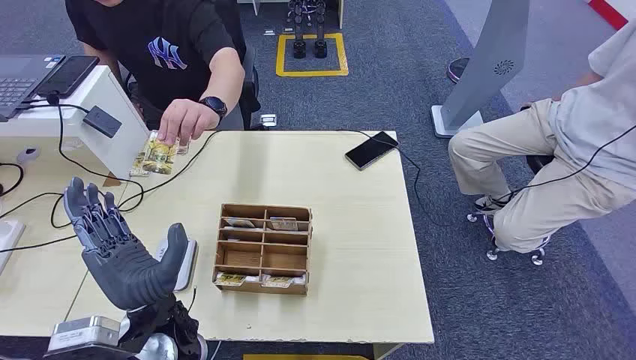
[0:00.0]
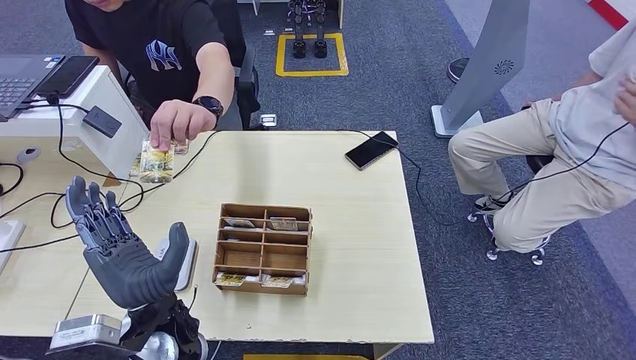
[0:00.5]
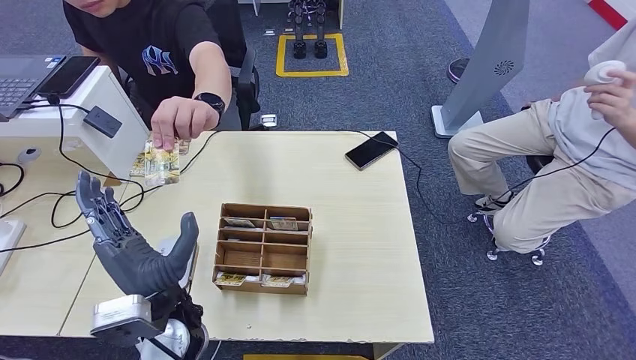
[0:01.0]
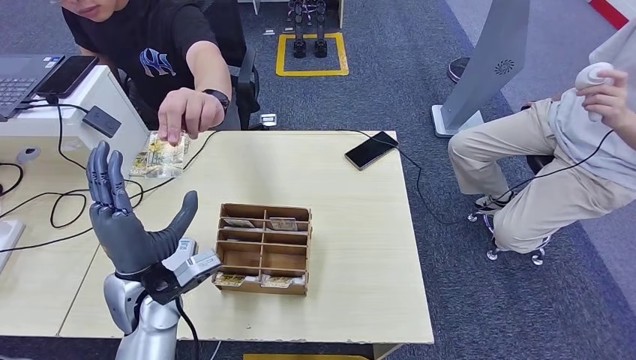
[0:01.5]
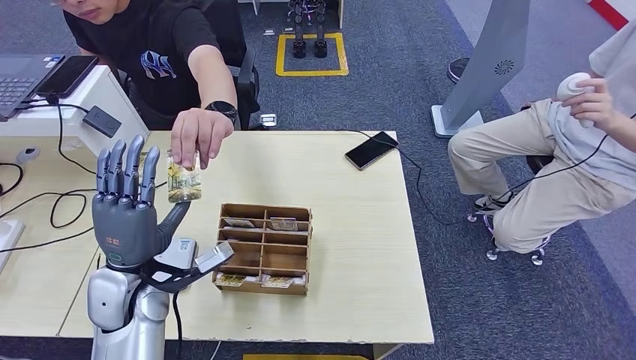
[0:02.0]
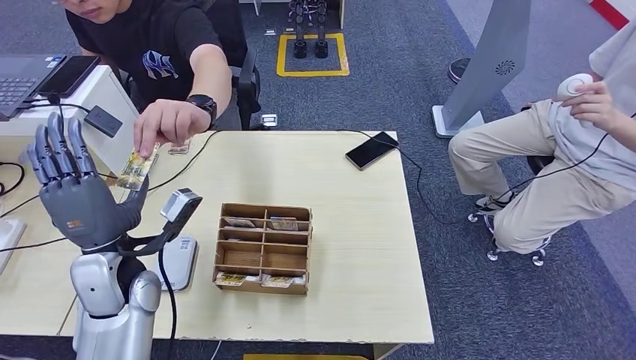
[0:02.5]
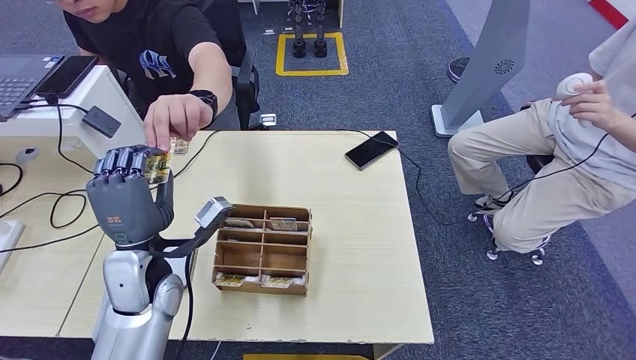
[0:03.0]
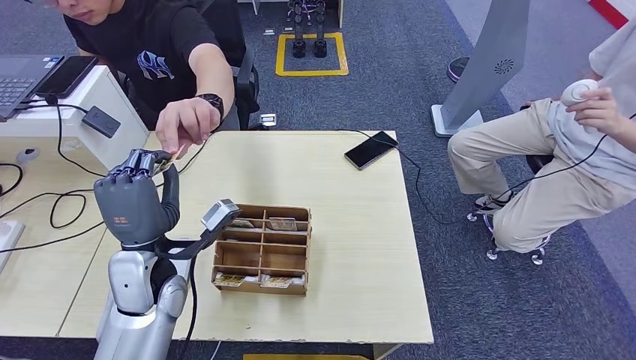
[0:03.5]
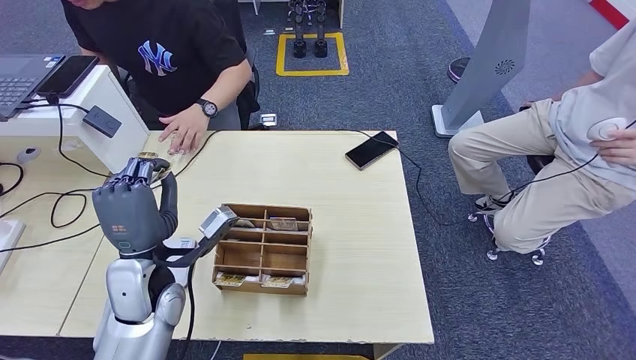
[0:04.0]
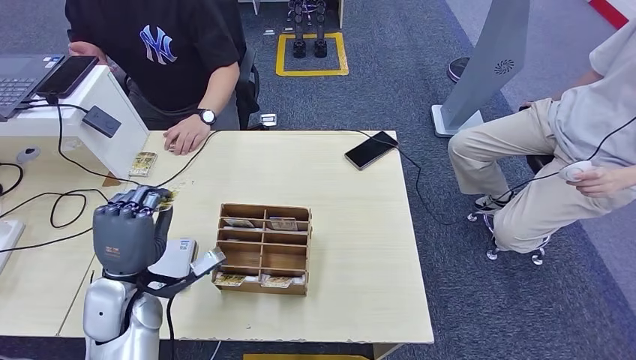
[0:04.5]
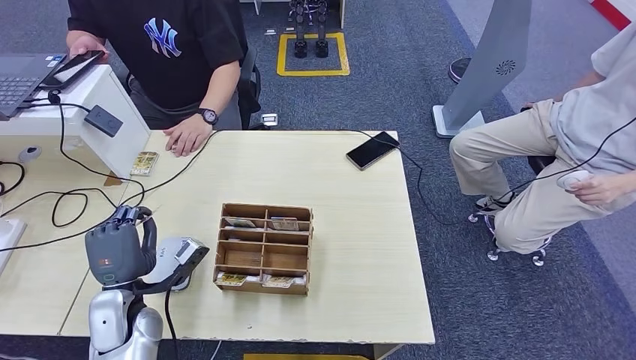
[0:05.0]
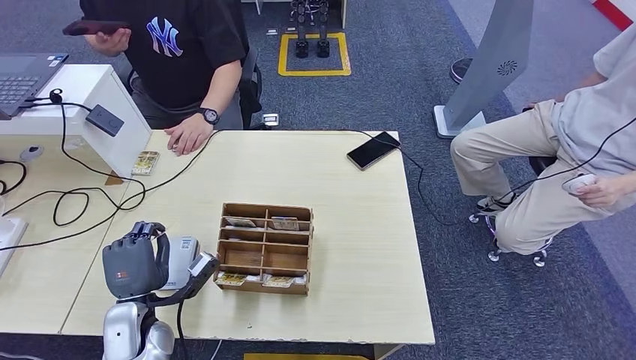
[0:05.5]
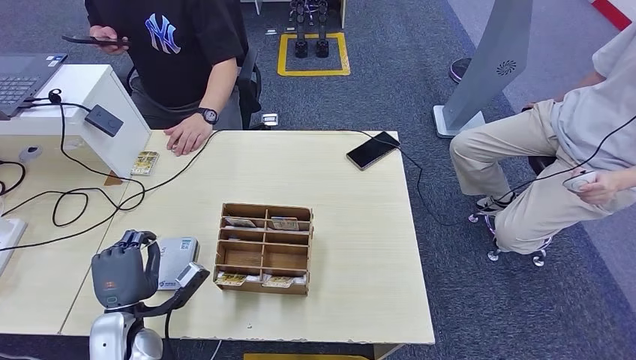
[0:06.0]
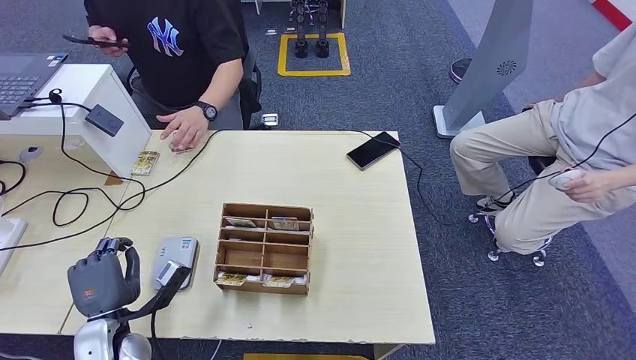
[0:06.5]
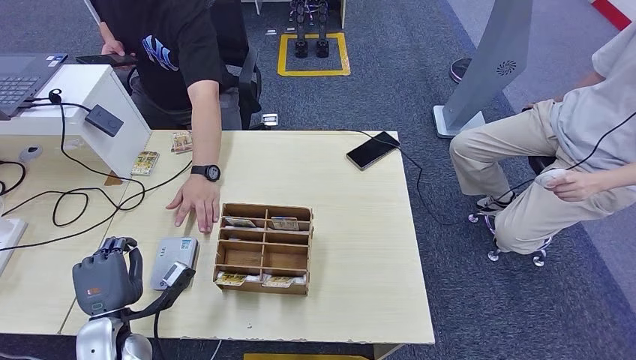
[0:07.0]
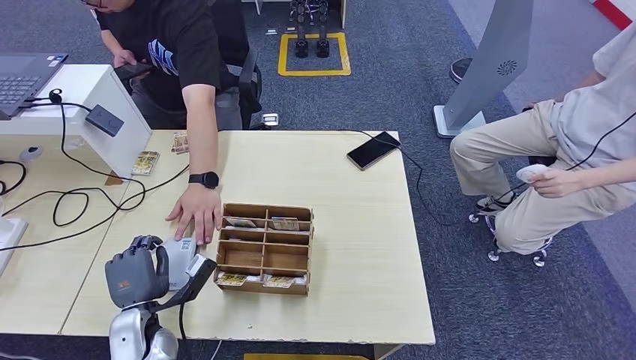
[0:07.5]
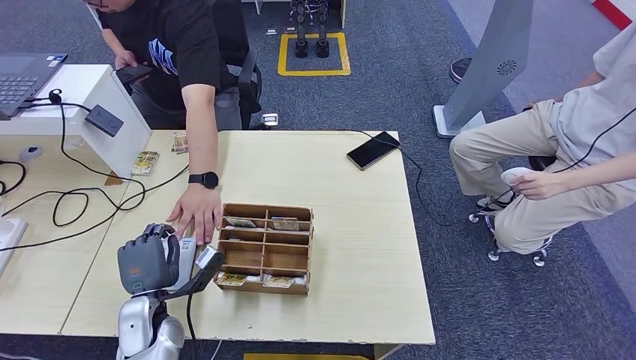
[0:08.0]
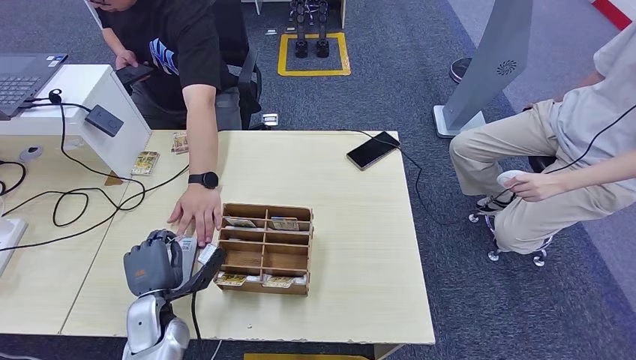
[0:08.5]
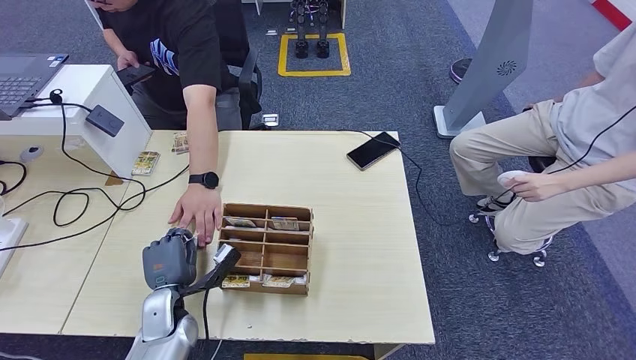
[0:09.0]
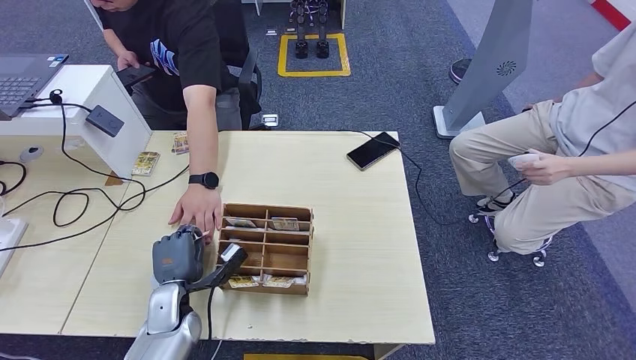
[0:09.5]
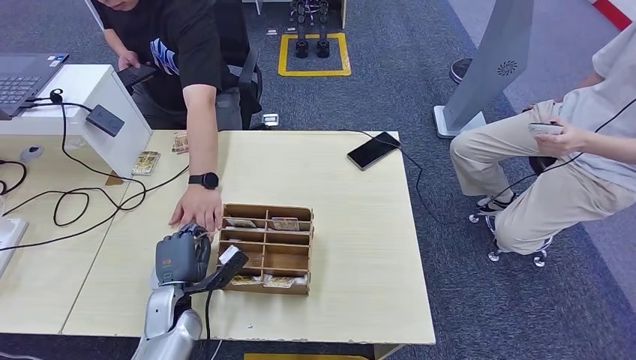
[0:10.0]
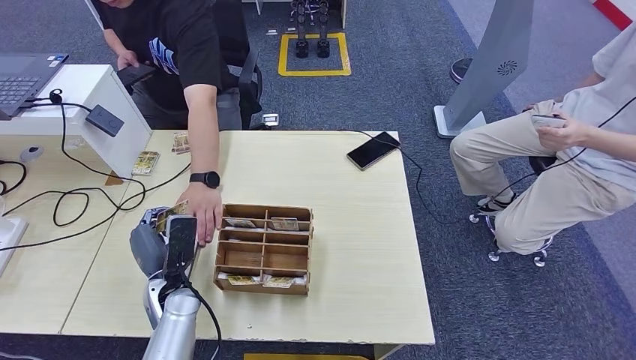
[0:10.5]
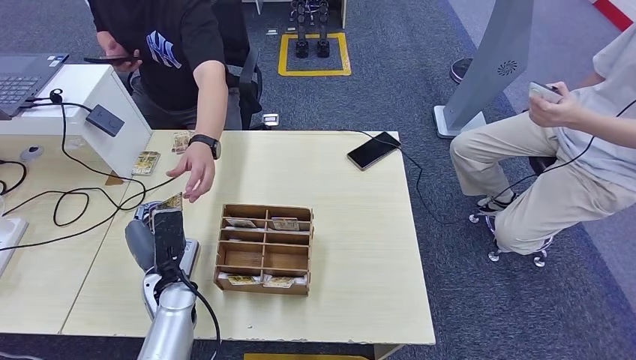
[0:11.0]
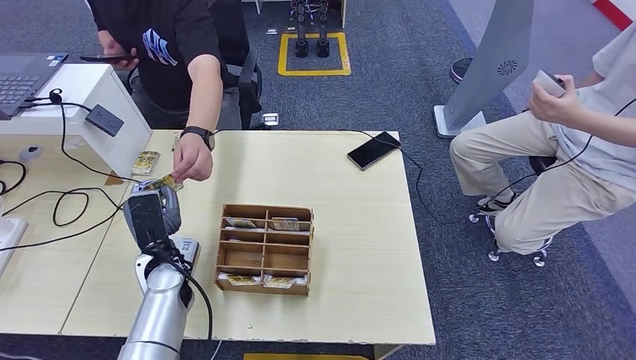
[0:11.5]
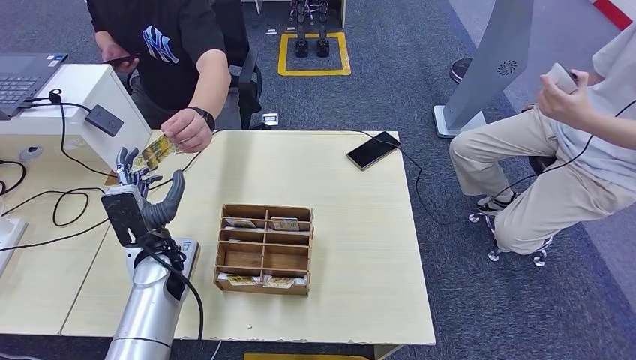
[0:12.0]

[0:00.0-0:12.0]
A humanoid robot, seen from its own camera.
Step, 0:00.0 to 0:03.5: Take the ID card from the person's hand.
Step, 0:04.5 to 0:09.0: Place the ID card on the card reader.
Step, 0:09.5 to 0:11.5: Hand the ID card to the person.
0:02.0 to 0:04.0: The hands move only a little.
0:04.0 to 0:06.0: The left hand heads downward and to the left, covering roughly 15 cm.
0:06.0 to 0:08.0: The hands stay close to where they were, moving slightly.
0:08.0 to 0:10.0: There are only small adjustments of the hands.
0:10.0 to 0:12.0: The left hand goes roughly 10 cm upward and forward.

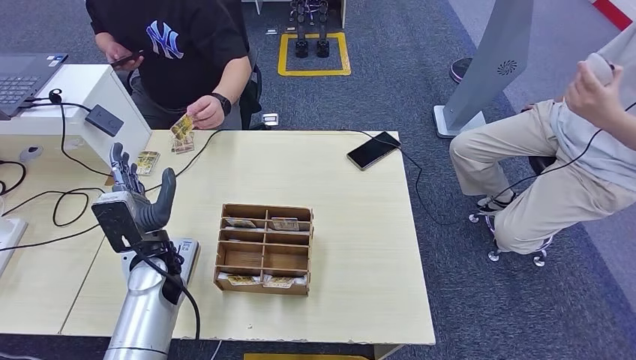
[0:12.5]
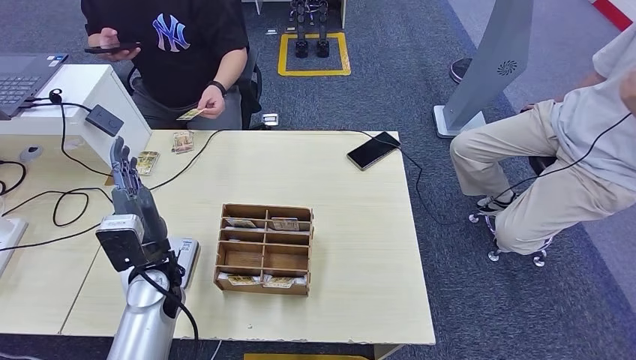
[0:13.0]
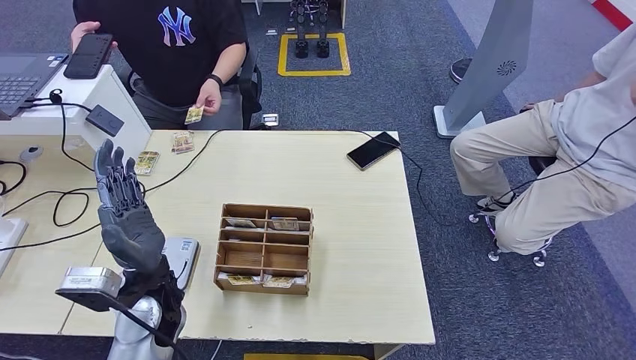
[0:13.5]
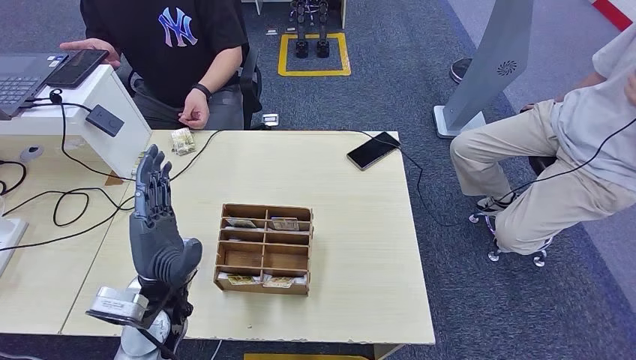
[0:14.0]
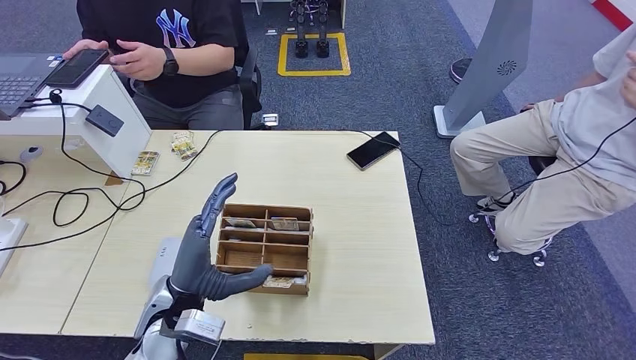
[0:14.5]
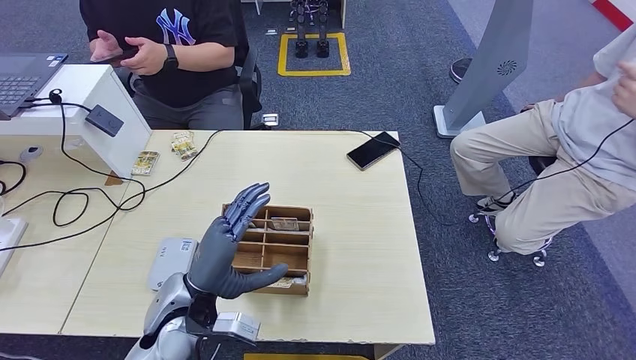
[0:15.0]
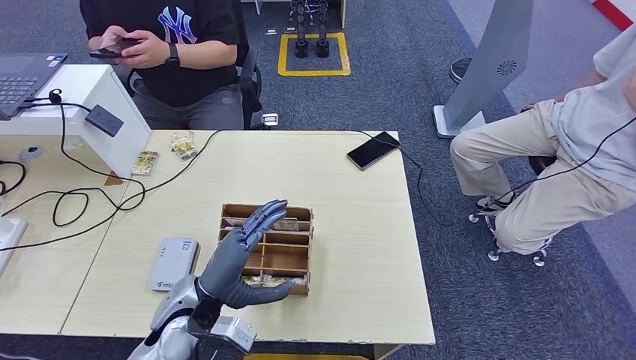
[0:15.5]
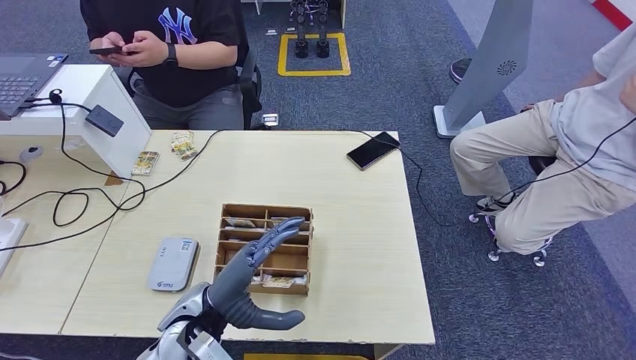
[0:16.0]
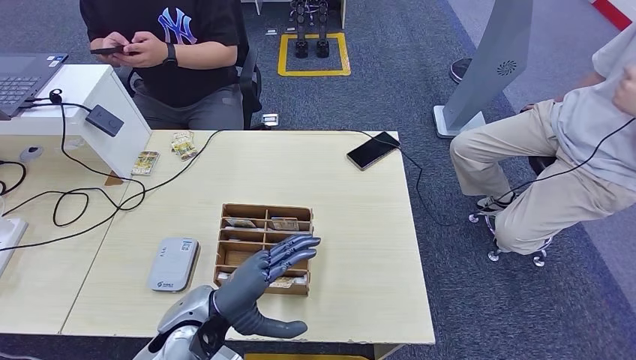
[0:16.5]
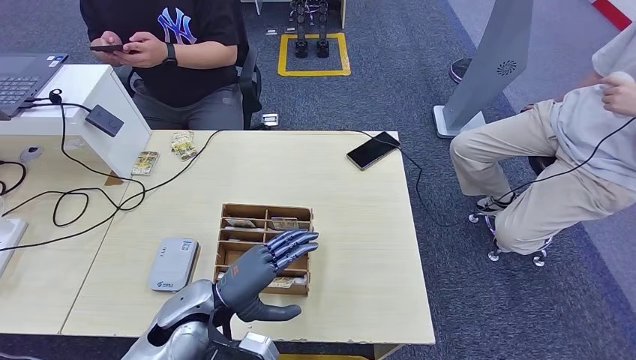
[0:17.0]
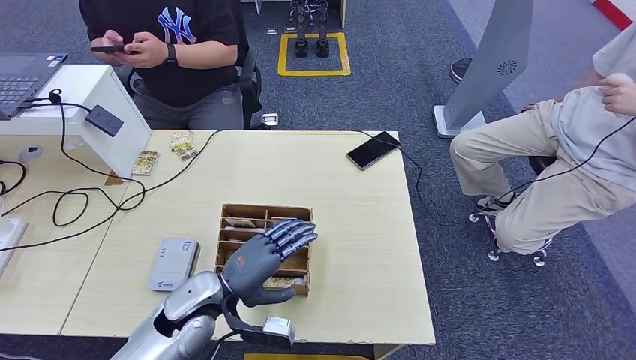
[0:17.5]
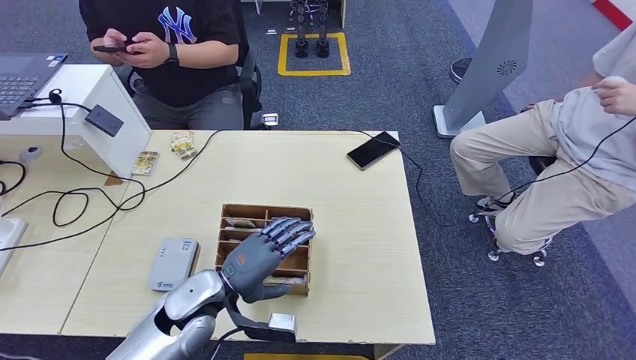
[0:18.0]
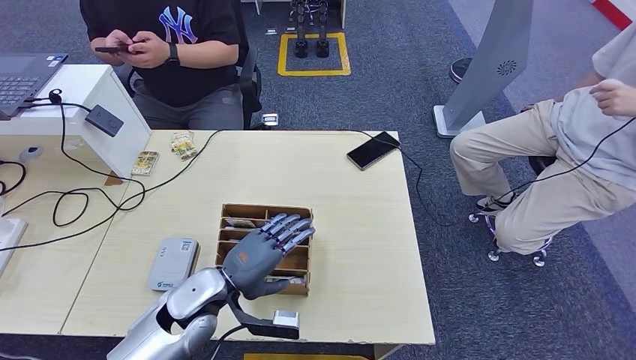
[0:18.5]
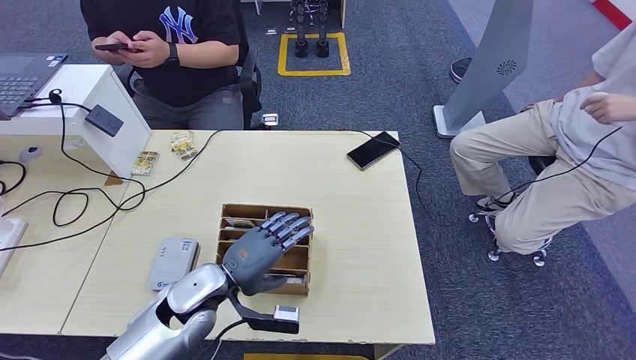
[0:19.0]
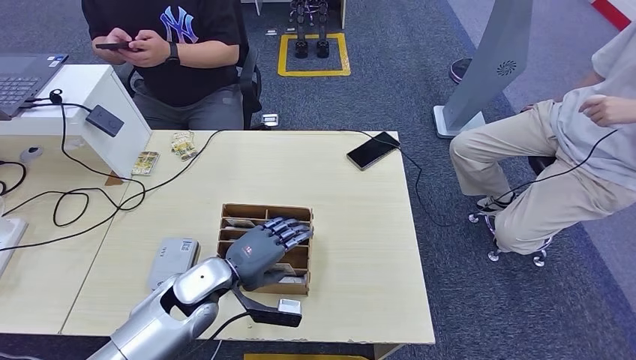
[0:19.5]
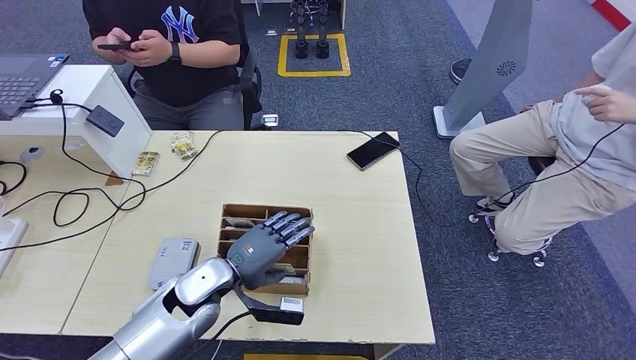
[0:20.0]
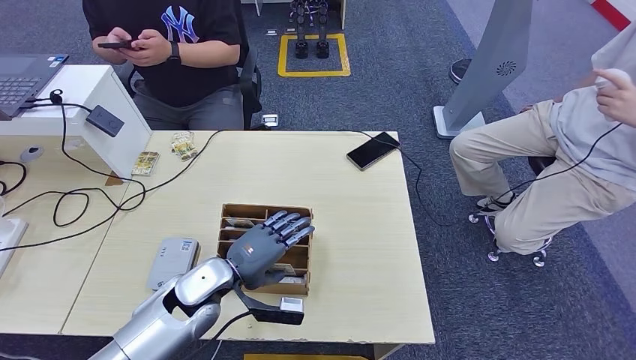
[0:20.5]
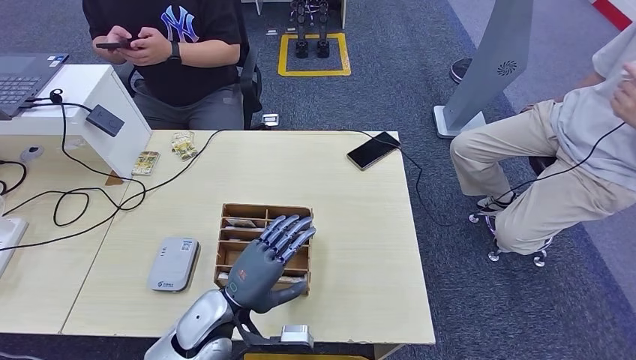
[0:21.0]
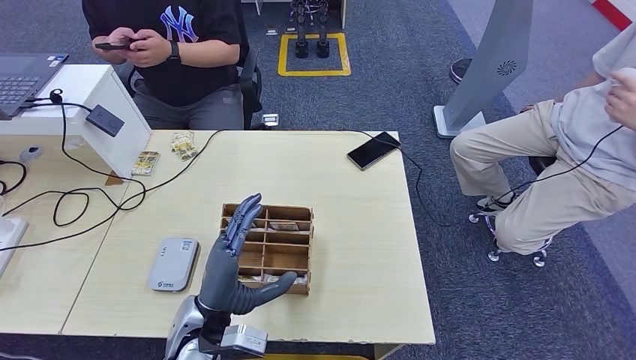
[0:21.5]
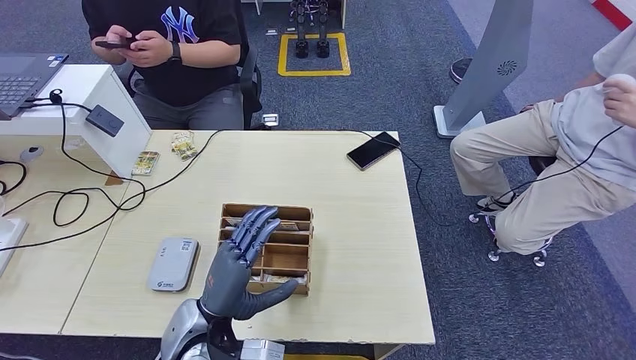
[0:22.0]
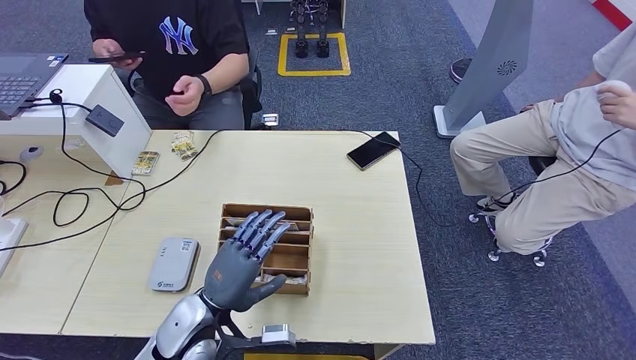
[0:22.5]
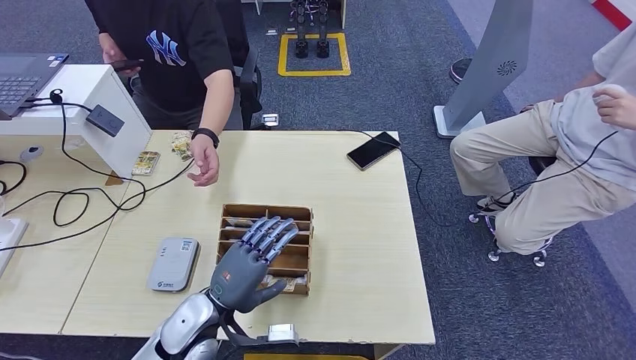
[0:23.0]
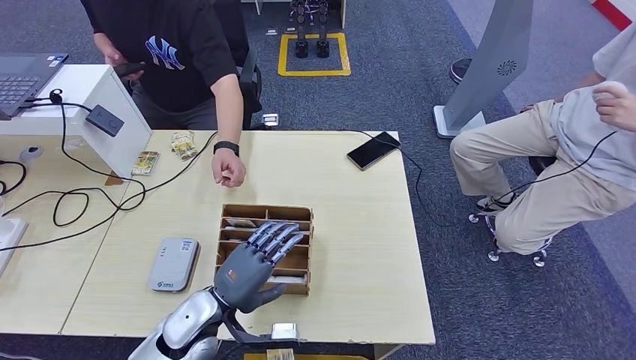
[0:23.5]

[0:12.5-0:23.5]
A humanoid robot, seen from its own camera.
0:12.5 to 0:14.5: The left hand shifts approximately 10 cm backward and to the right.
0:18.0 to 0:20.0: There are only small adjustments of the hands.
0:20.0 to 0:21.5: The left hand heads backward, covering some 5 cm.
